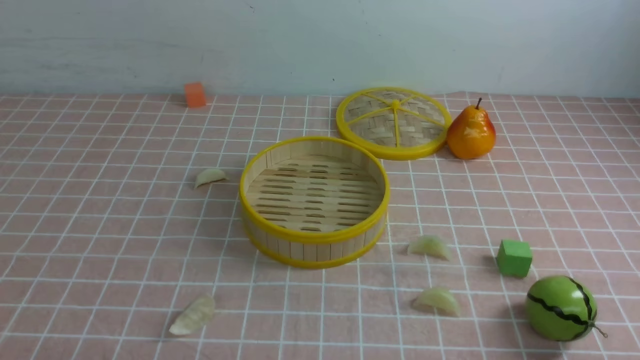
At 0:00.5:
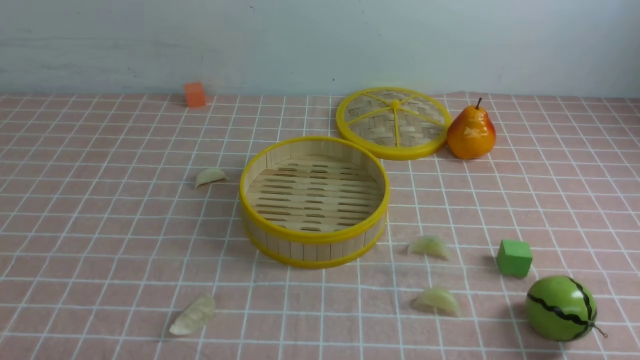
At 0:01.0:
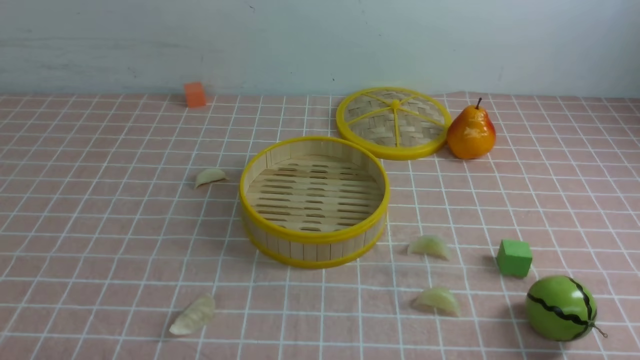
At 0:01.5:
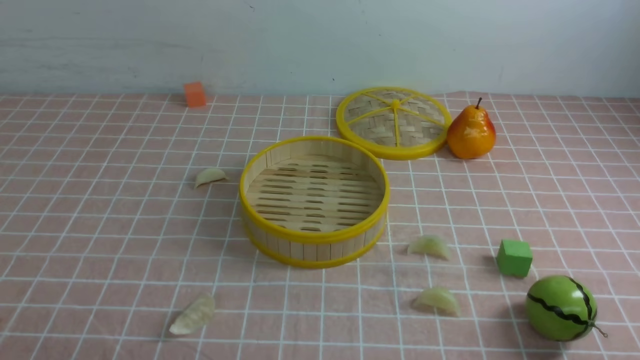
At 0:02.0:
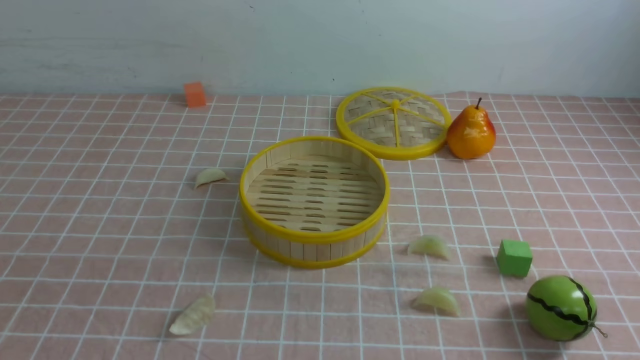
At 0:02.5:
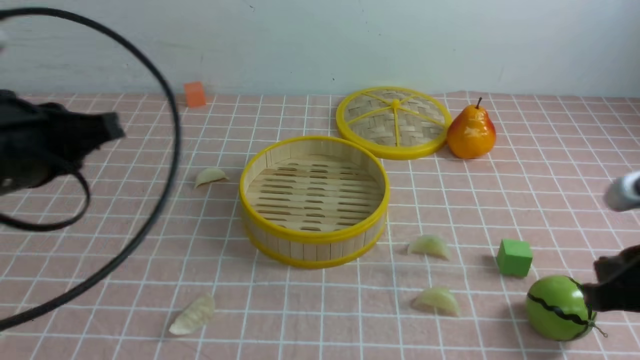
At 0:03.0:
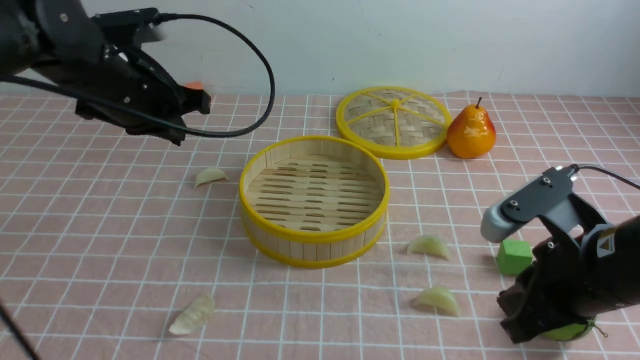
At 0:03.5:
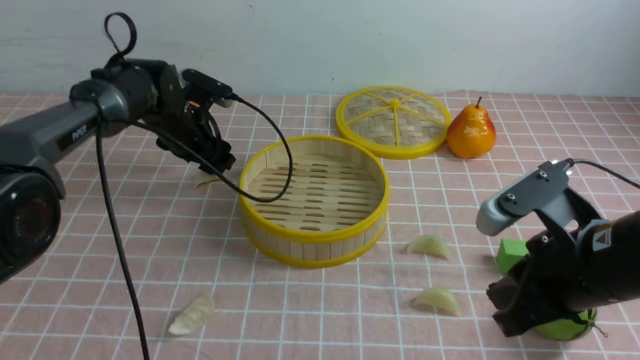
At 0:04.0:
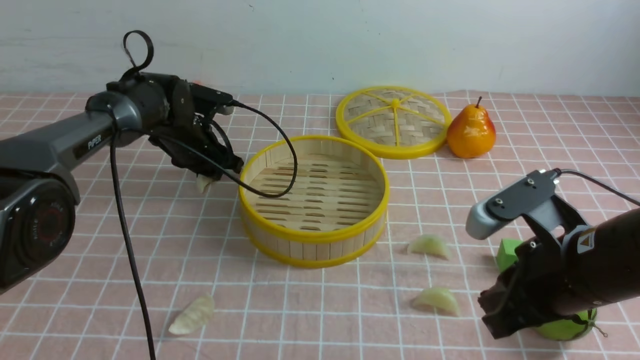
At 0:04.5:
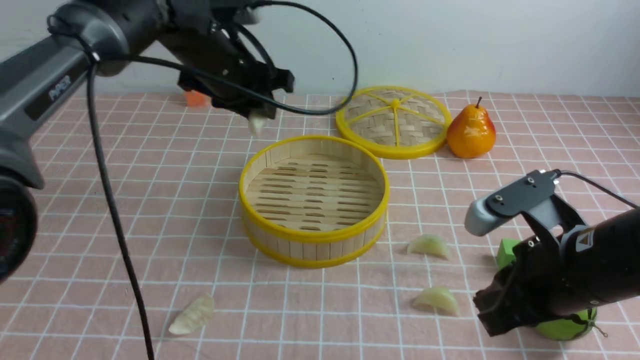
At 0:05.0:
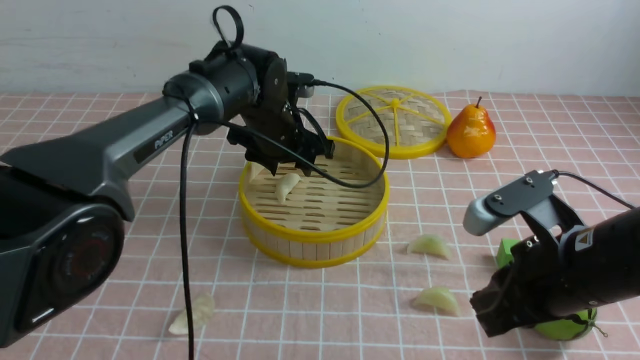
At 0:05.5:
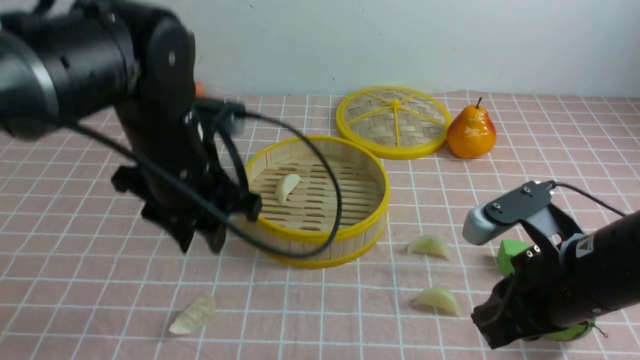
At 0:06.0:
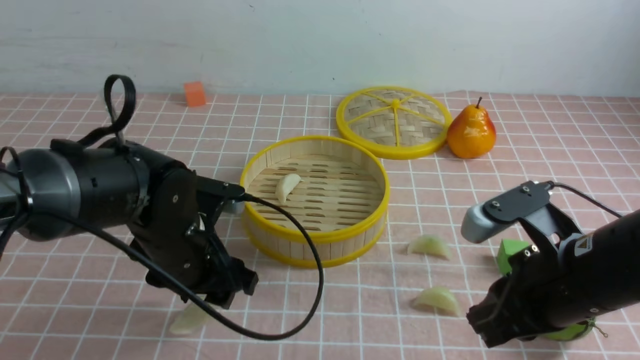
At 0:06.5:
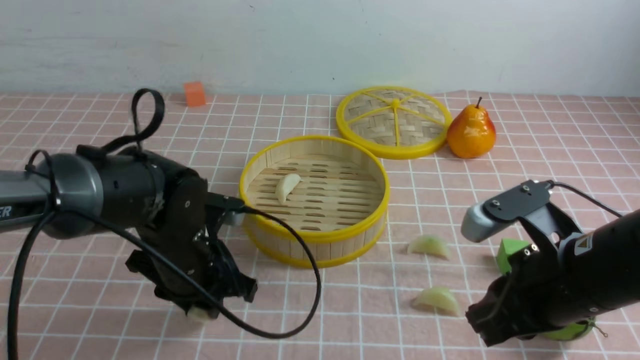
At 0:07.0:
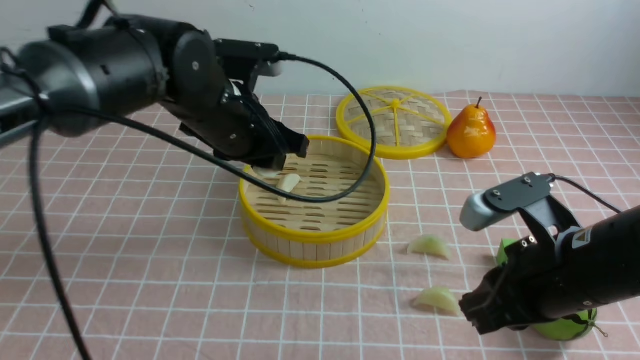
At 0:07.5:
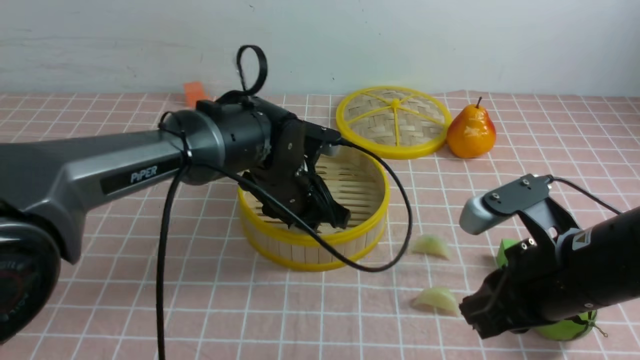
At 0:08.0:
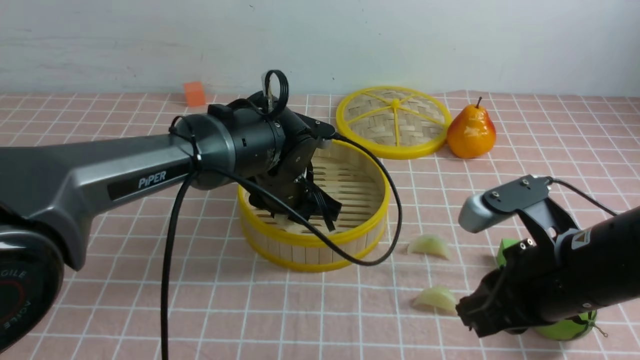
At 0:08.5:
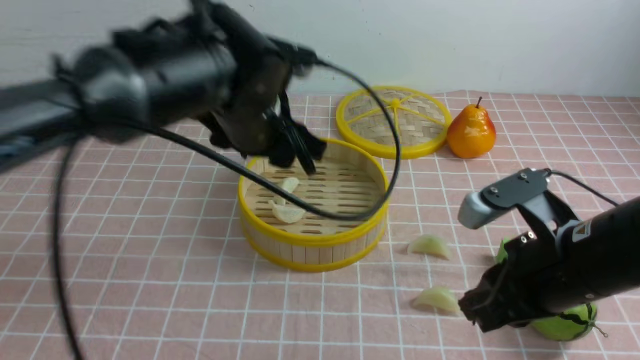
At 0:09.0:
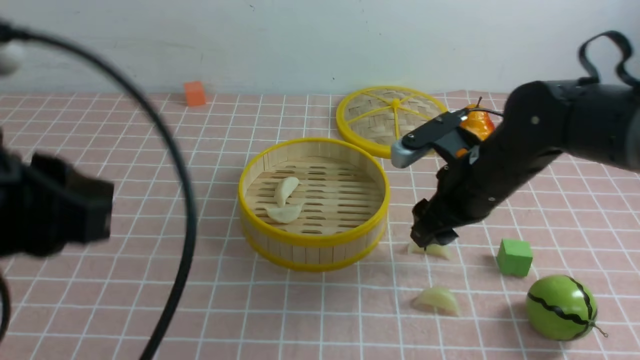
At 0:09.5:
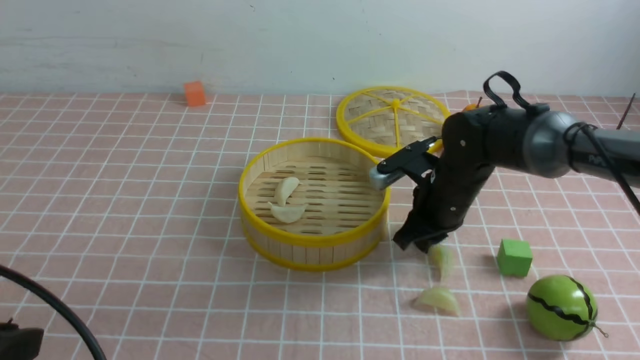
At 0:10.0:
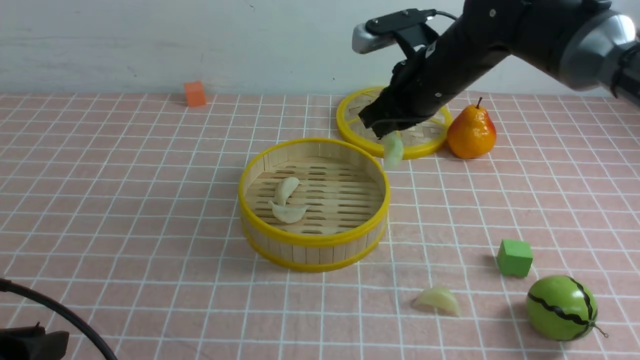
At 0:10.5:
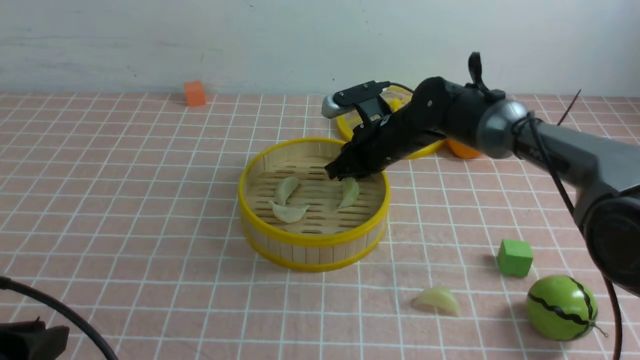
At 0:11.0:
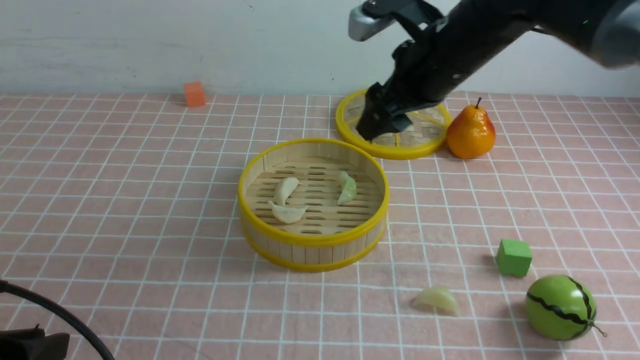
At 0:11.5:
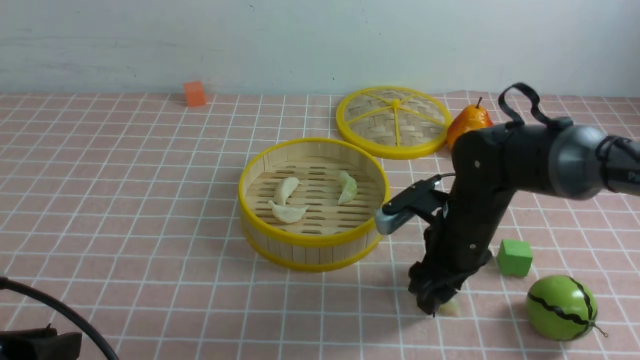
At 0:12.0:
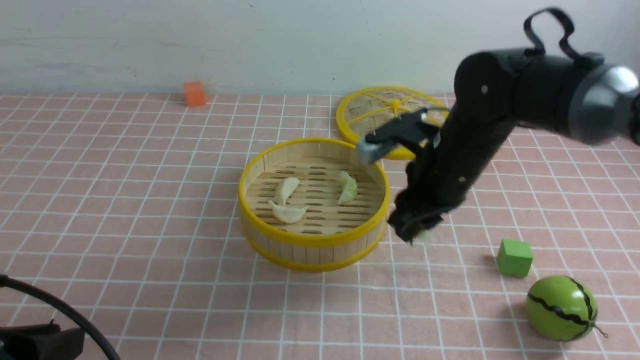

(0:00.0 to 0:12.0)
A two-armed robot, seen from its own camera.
Task of the whole recording: put the dumplings into the steamer on the table with the pink tablecloth.
Step, 0:00.0 - 0:04.0: use the left arm to grab a dumpling.
Step, 0:04.5 - 0:05.0: use the left arm to put the dumpling into the steamer.
Step, 0:05.5 - 0:06.5: use the left arm to grab a dumpling.
Step, 0:07.0 - 0:08.0: use the left arm to put the dumpling into the steamer.
Step, 0:08.5 - 0:09.5: use the right arm to grab a dumpling.
Step, 0:10.0 - 0:10.5: use the right arm to put the dumpling into the steamer.
Step, 0:11.0 - 0:11.5: use the right arm to grab a dumpling.
0:02.0 - 0:04.0: The right gripper goes roughly 20 cm forward and to the left; the left gripper heads forward, covering about 50 cm, and opens up.
0:04.0 - 0:06.0: The left gripper shifts some 20 cm backward, and opens up.
0:06.0 - 0:08.0: The left gripper moves to the right and forward, approximately 15 cm.
0:08.0 - 0:10.0: The left gripper goes about 35 cm backward and to the left, and closes its fingers, while the right gripper goes approximately 20 cm forward, and opens and closes again.
0:10.0 - 0:12.0: The right gripper is displaced backward by about 5 cm, and opens.

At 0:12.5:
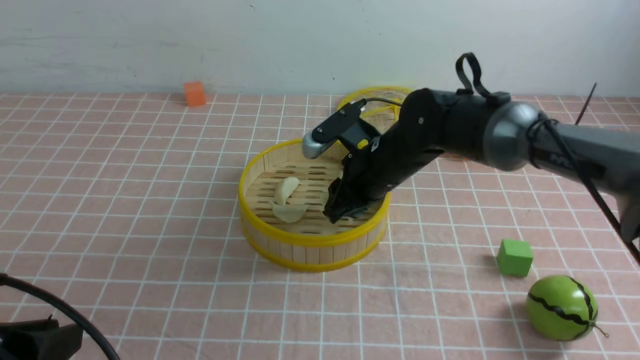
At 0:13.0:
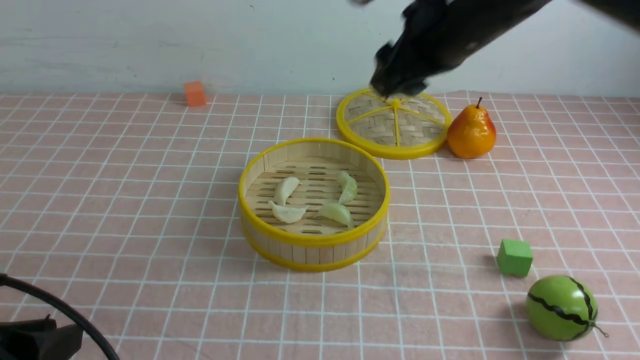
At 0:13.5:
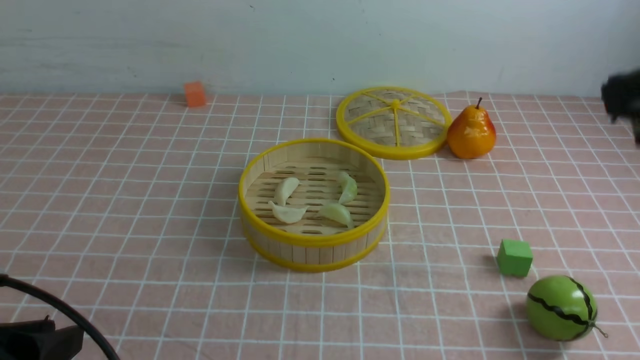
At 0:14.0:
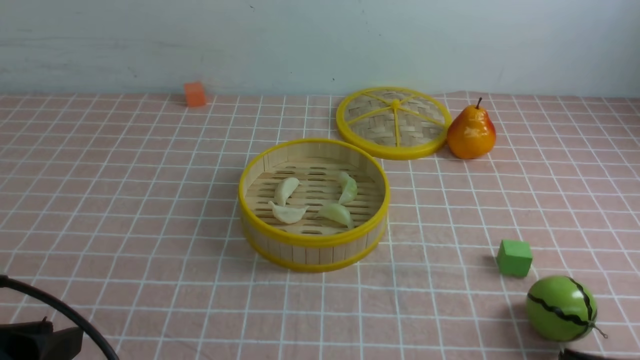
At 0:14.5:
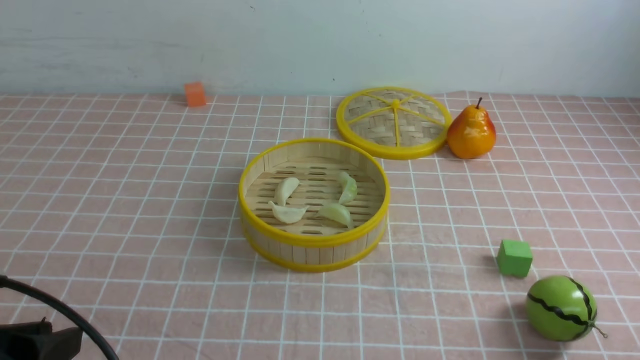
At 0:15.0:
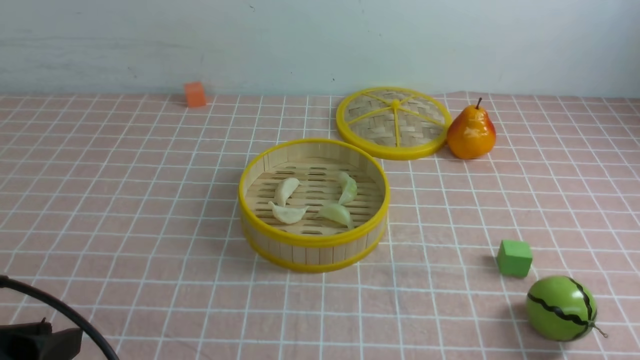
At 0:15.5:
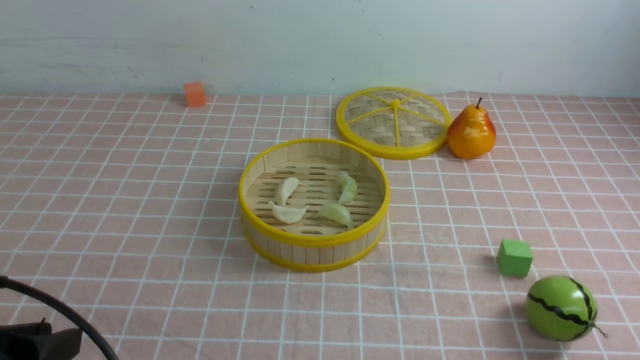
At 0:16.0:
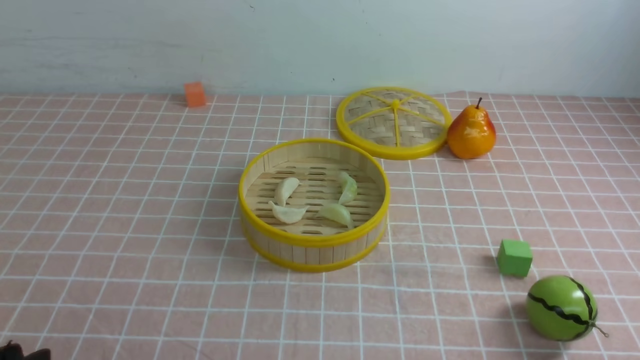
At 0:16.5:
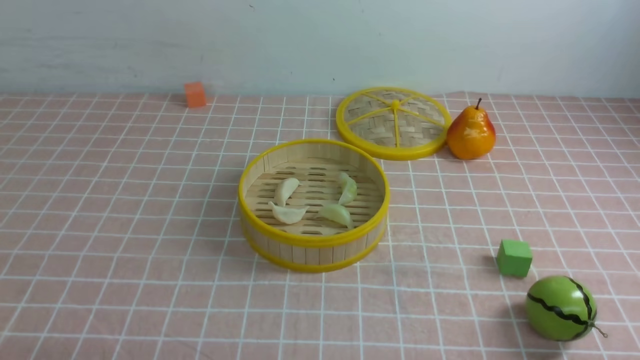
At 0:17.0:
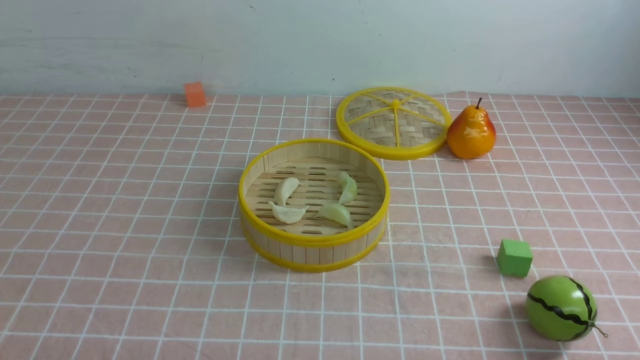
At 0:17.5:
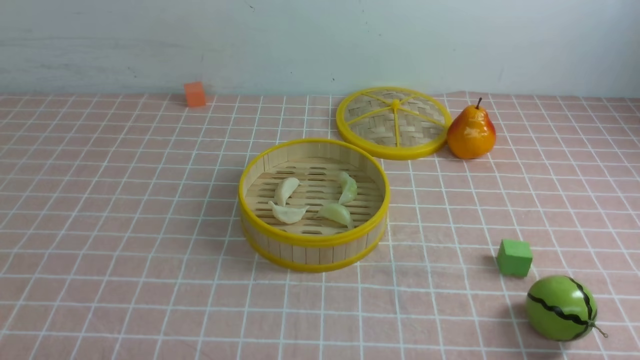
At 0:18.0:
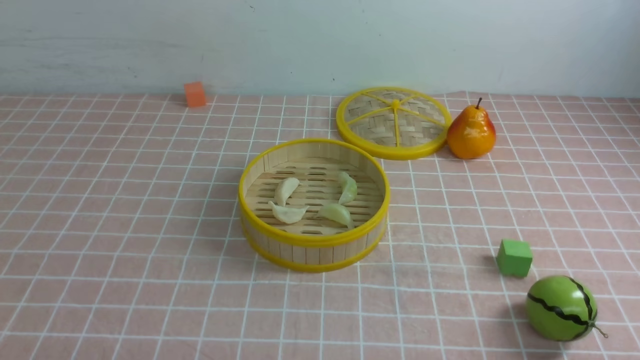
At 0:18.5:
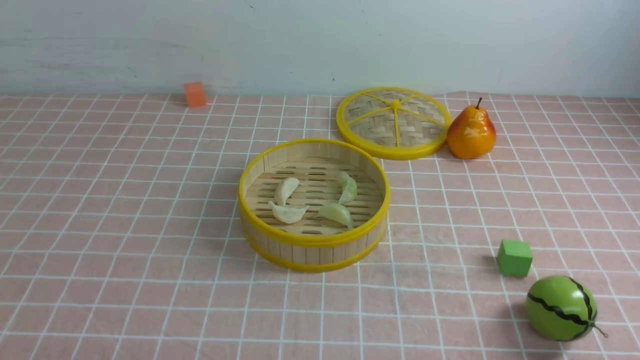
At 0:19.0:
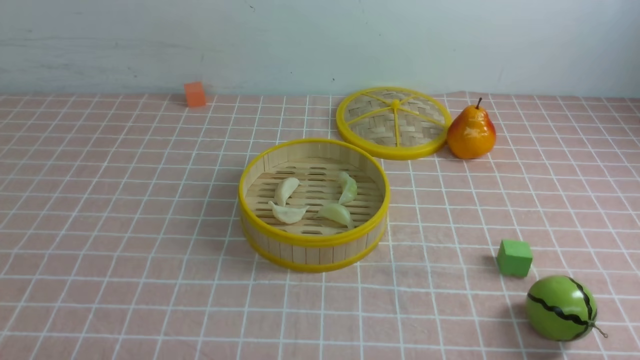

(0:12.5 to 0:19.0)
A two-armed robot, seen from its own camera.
Task of the whole recording: put the dumplings into the steamer on the table with the pink tablecloth.
Step, 0:12.5 - 0:13.0: use the right arm to put the dumpling into the steamer.
0:12.5 - 0:14.5: The right gripper moves backward and to the right, about 40 cm, and closes up.
0:14.5 - 0:17.0: The left gripper travels downward and backward by about 10 cm, and closes up.
0:17.0 - 0:19.0: Both grippers stay about where they are.

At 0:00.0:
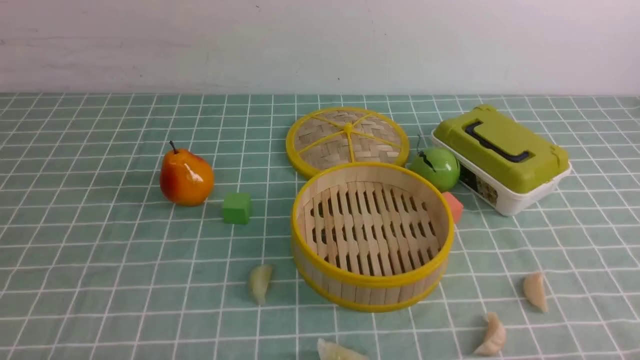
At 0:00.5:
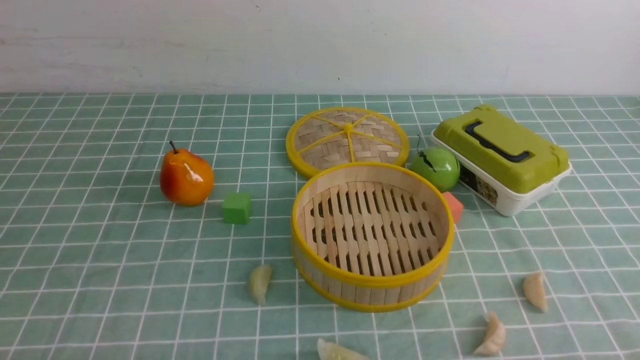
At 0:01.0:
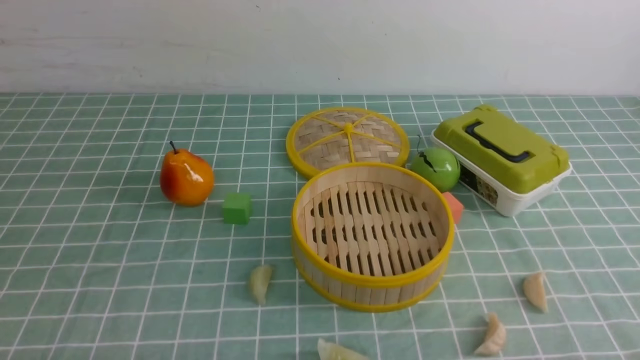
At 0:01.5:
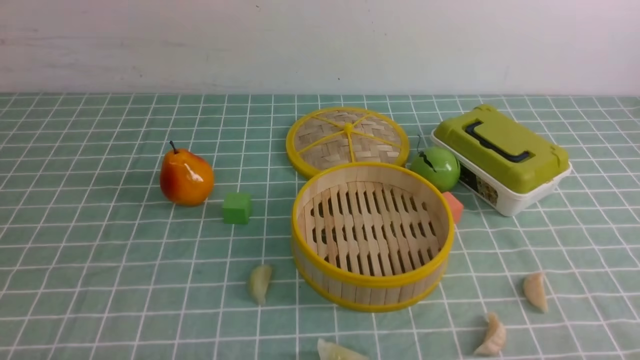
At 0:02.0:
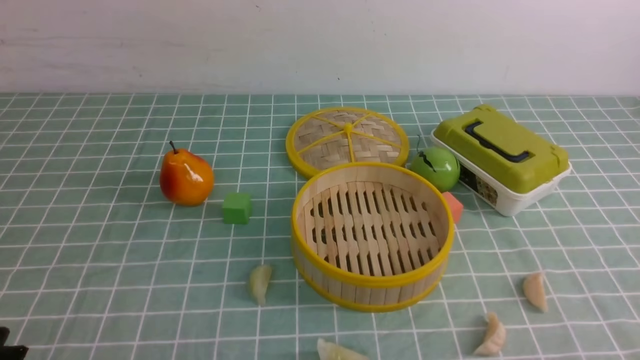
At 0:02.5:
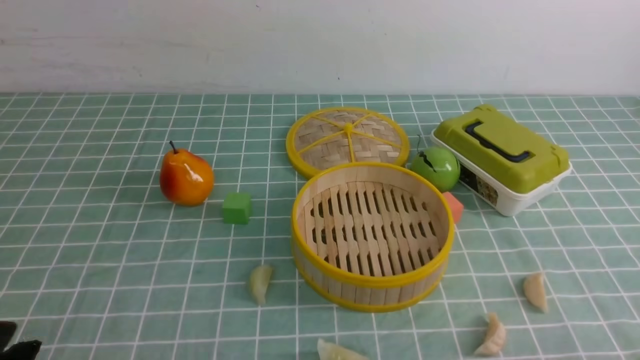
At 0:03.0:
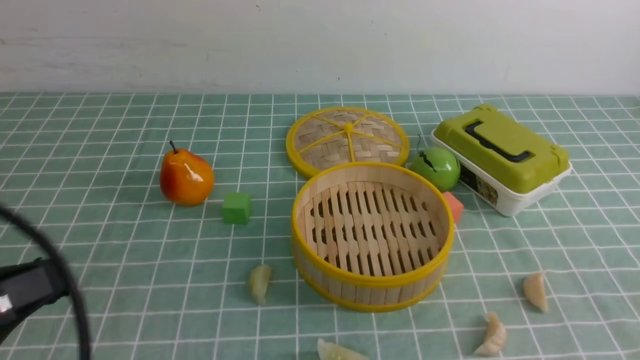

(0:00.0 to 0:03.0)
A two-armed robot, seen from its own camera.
Task of the whole recording: put the dumplings into the steamer on the table with the blue tablecloth.
0:00.0 - 0:01.5: Both grippers stay about where they are.
0:01.5 - 0:03.0: The left gripper shifts about 15 cm upward, and closes its fingers.
